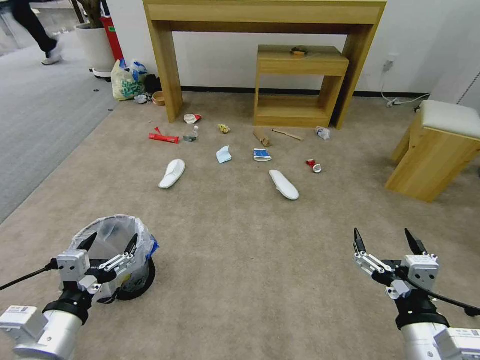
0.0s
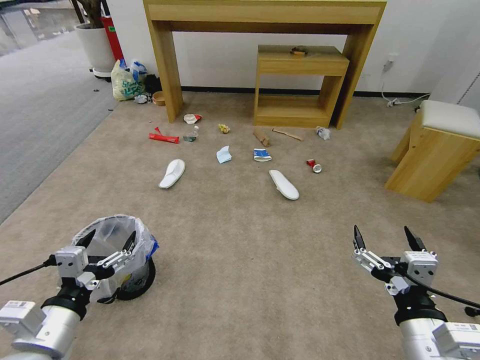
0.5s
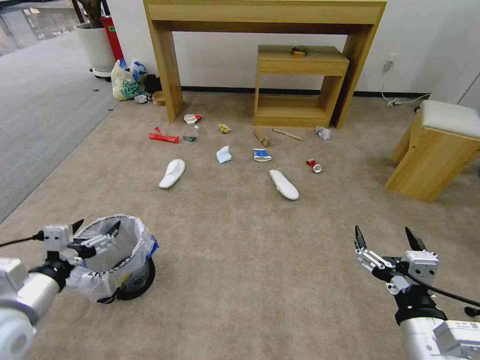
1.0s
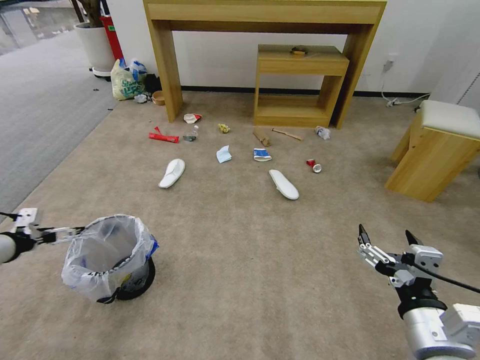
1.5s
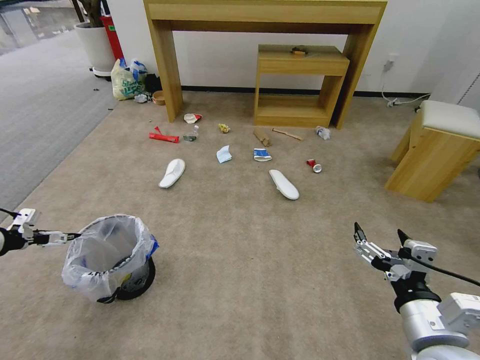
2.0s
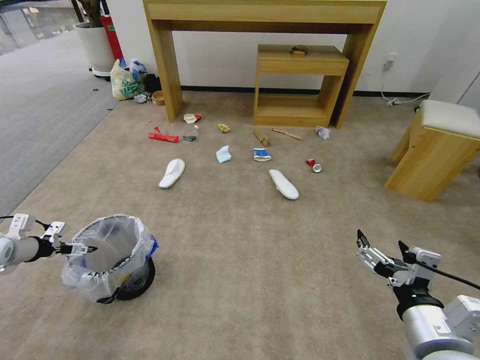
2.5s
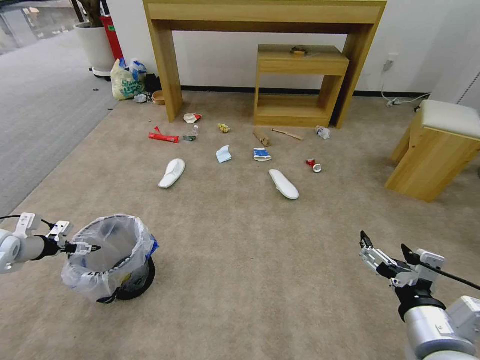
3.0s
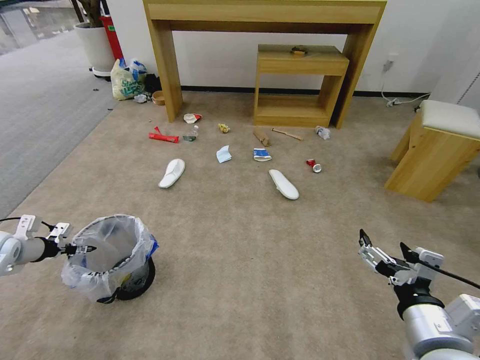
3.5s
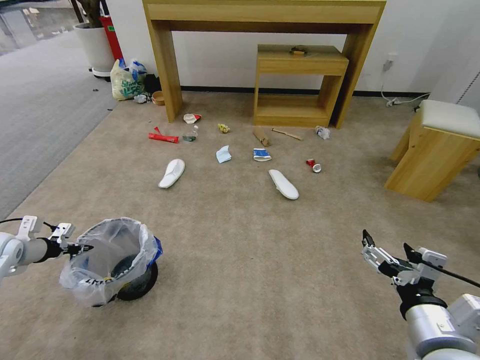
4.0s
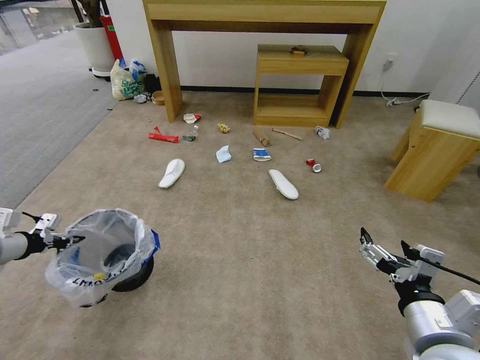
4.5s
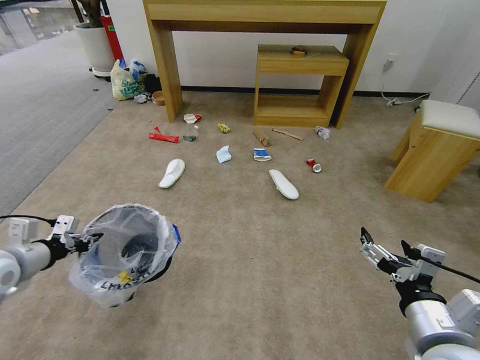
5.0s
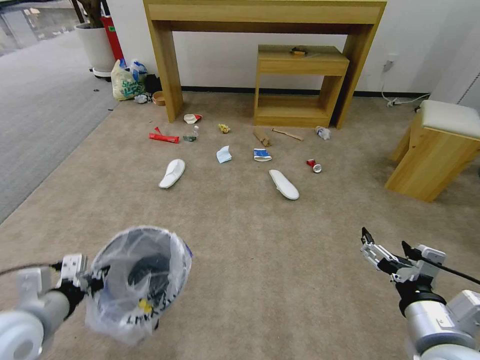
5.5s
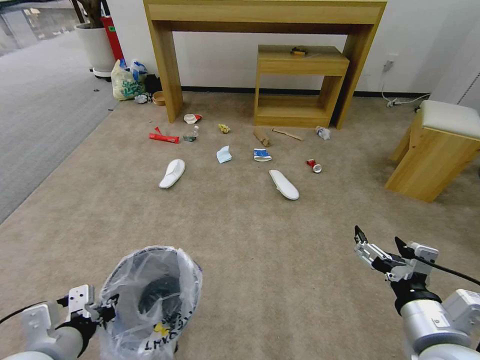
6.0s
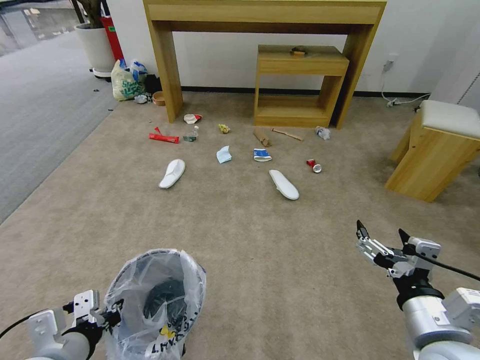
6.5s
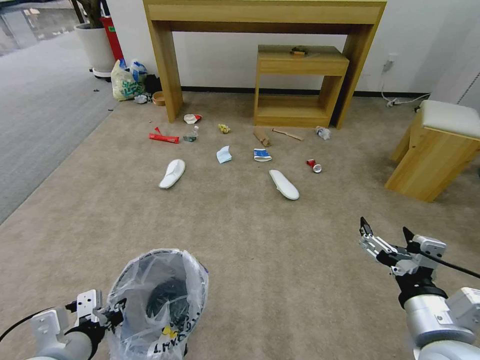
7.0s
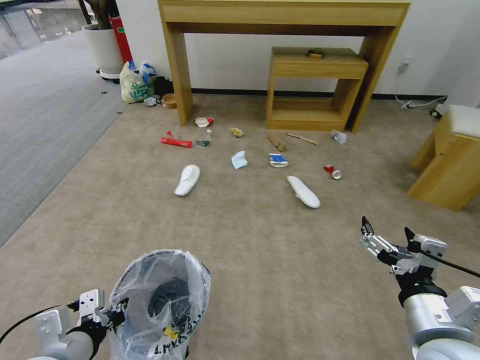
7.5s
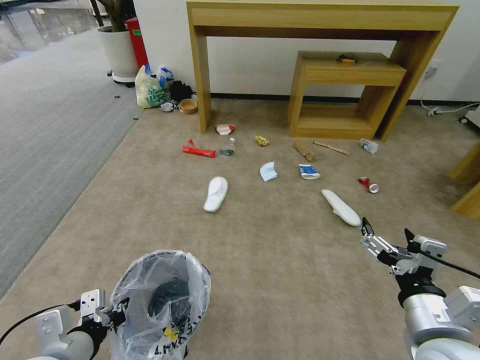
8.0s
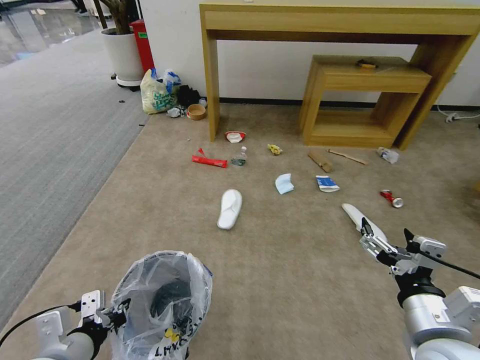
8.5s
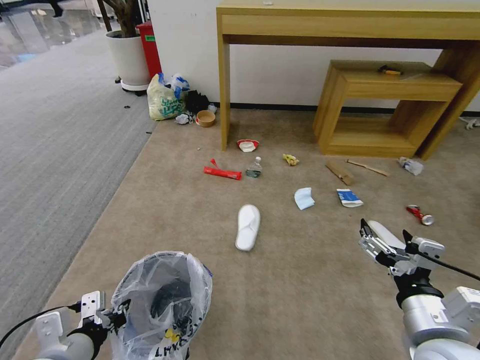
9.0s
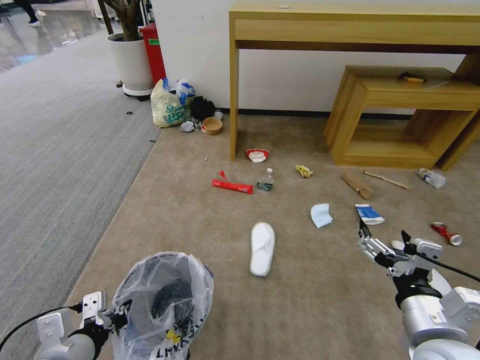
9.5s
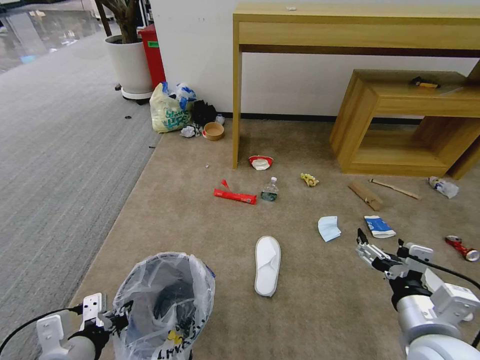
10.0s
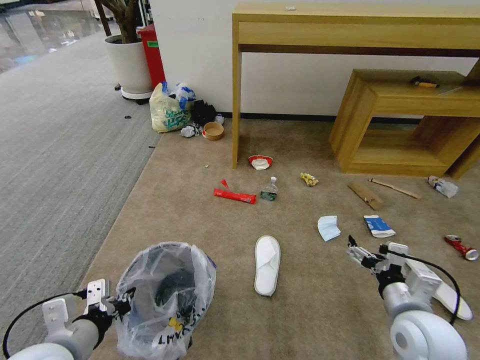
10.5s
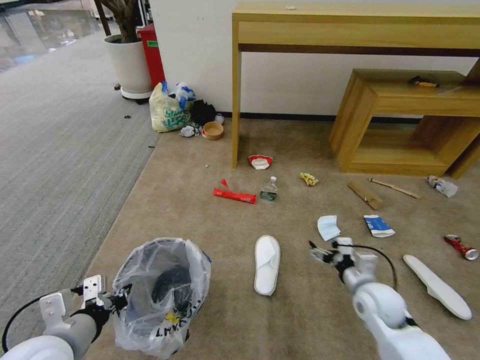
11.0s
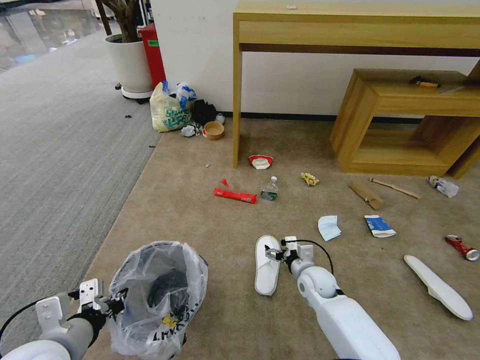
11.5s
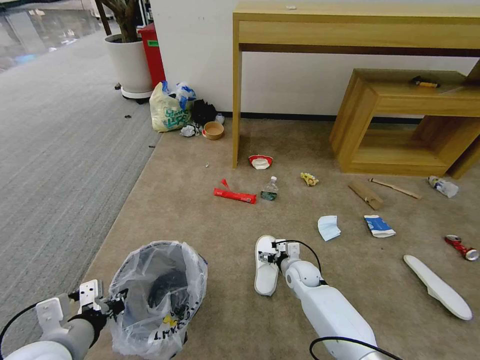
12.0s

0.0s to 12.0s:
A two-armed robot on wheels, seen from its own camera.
Task of the whole recording: Pick up the trash bin and place the garbage on the floor into it.
2.0s to 4.0s: The left gripper travels downward by about 10 cm, and closes its fingers.
4.0s to 6.0s: The left gripper shifts roughly 35 cm to the right and backward.
10.0s to 12.0s: The right gripper moves downward and forward, roughly 35 cm.

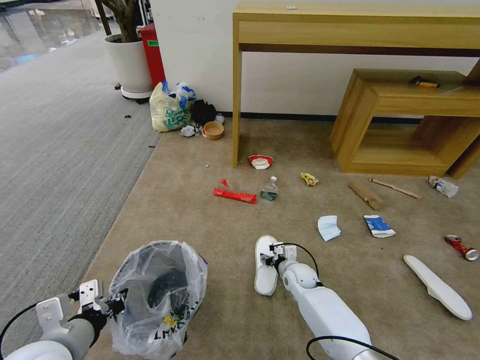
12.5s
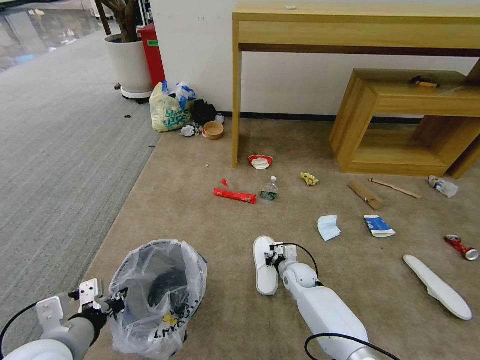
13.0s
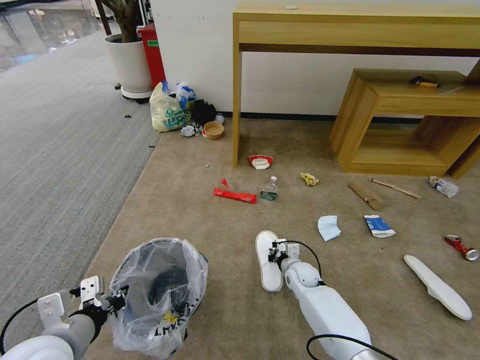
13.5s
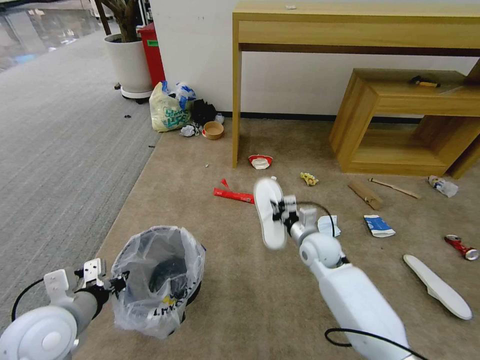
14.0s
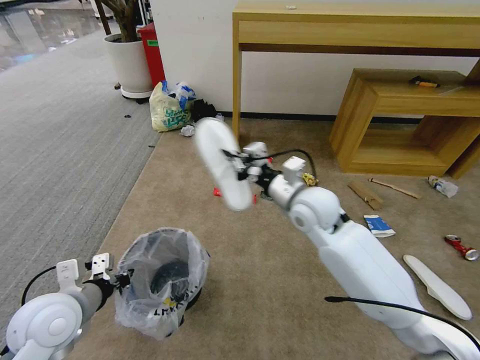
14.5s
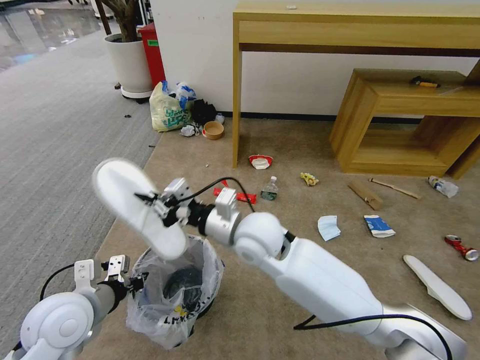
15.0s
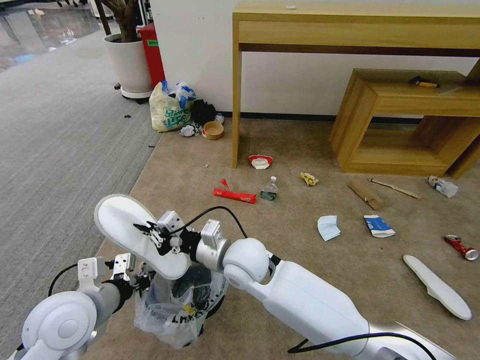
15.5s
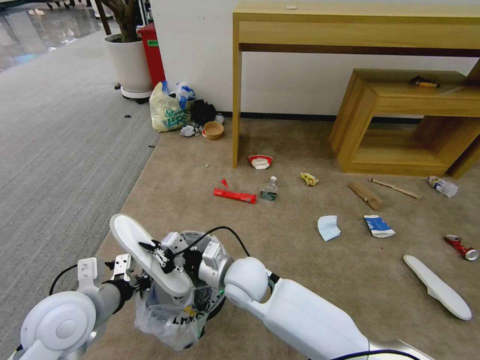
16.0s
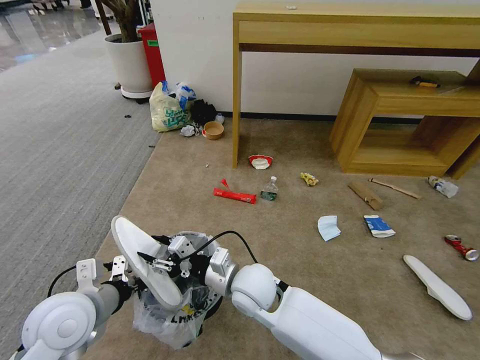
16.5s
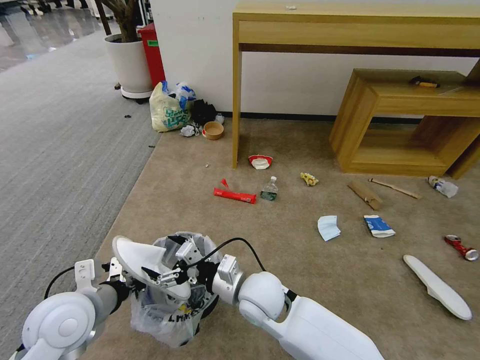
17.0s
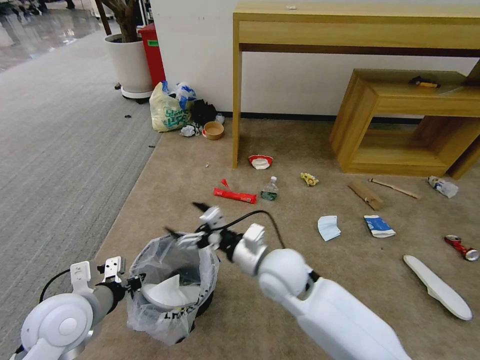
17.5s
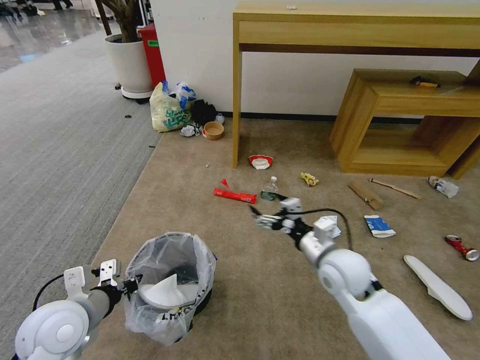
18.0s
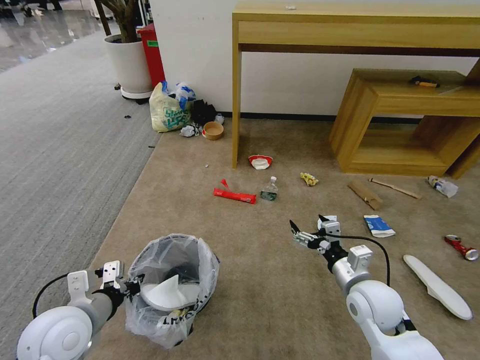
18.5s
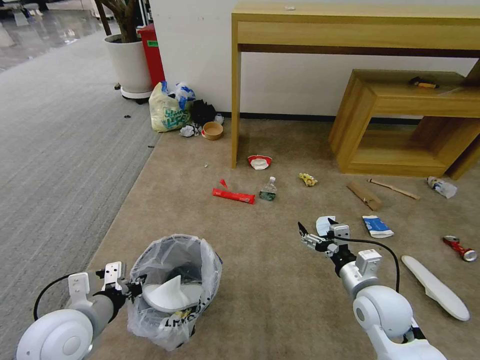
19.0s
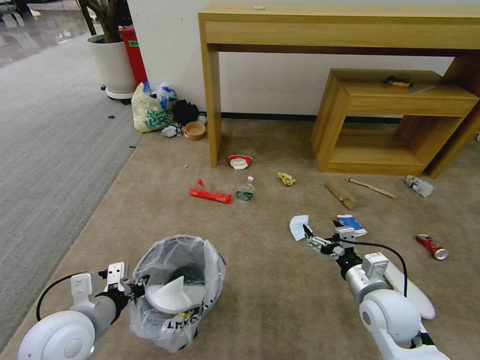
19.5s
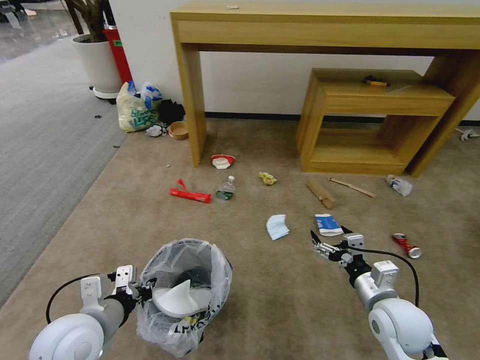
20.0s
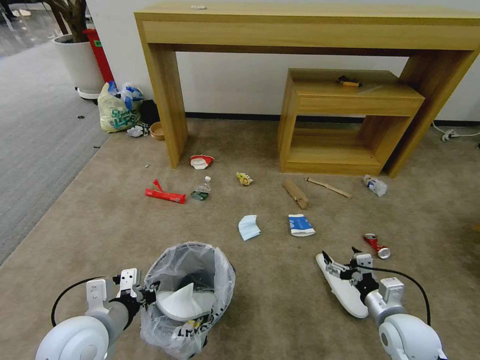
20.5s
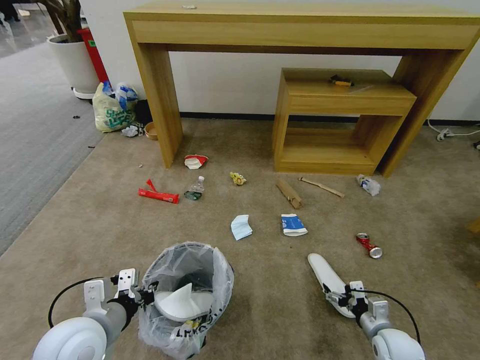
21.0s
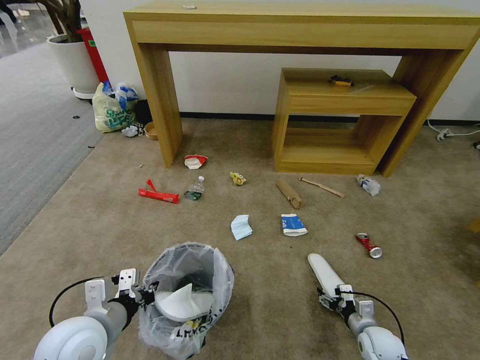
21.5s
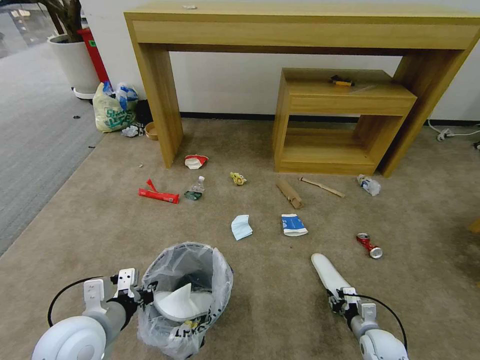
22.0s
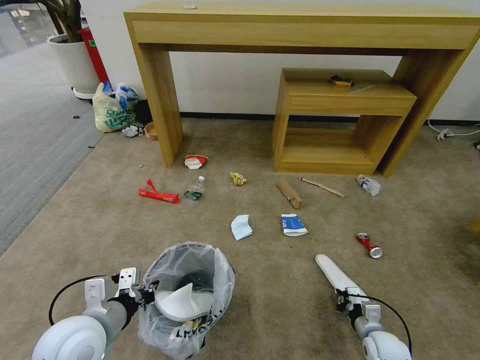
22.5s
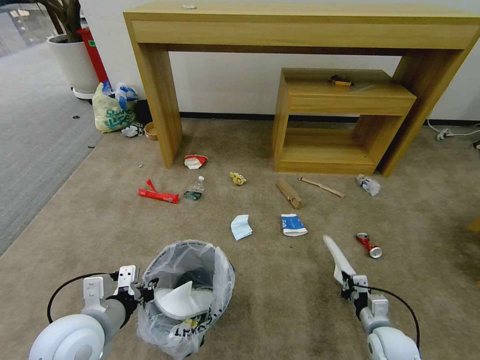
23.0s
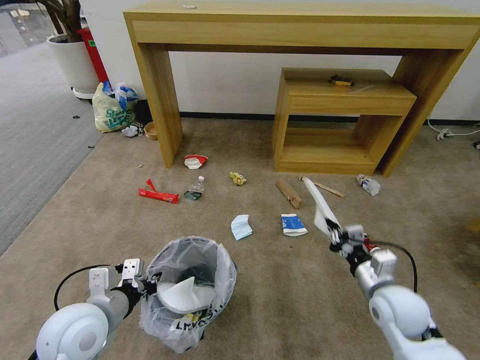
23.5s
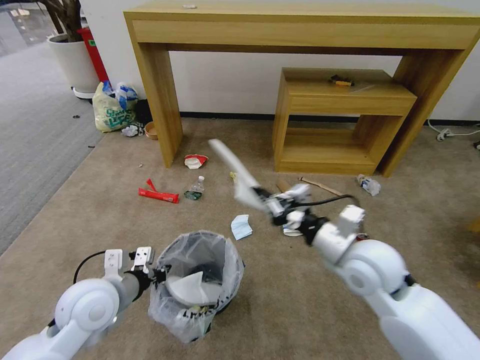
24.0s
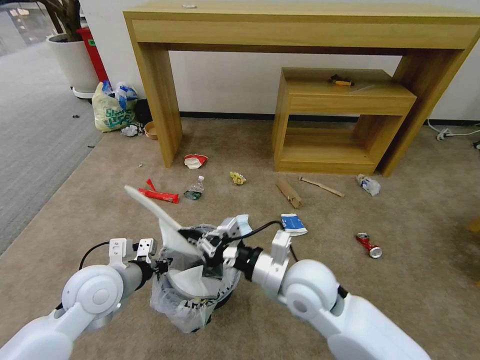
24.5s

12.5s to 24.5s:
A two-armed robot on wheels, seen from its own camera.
Task of the whole recording: Pick up the trash bin and place the garbage on the floor into it.
12.5s to 14.5s: The left gripper heads forward, covering roughly 5 cm, while the right gripper heads upward, covering about 30 cm, and closes up.
14.5s to 16.5s: The right gripper travels to the left, downward and backward by roughly 20 cm, and opens its fingers.
16.5s to 18.5s: The right gripper shifts roughly 25 cm to the right, and opens up.
18.5s to 20.5s: The right gripper shifts roughly 10 cm to the right, downward and backward.
20.5s to 22.5s: The right gripper moves downward, some 15 cm, and closes up.
22.5s to 24.5s: The right gripper shifts about 40 cm upward and to the left. The left gripper shifts approximately 10 cm forward.

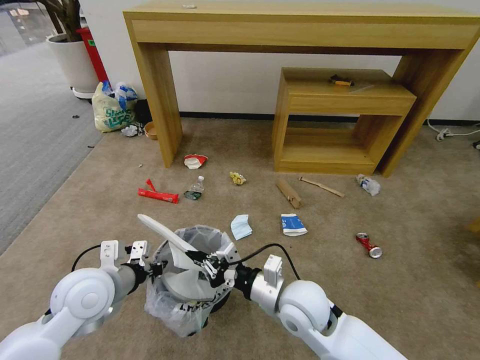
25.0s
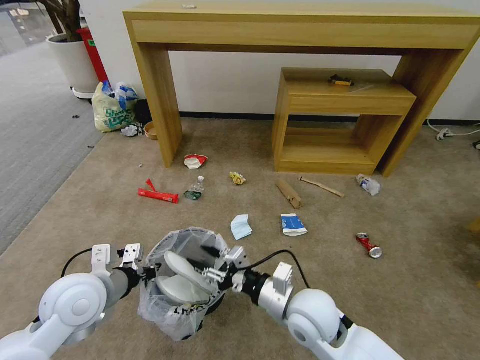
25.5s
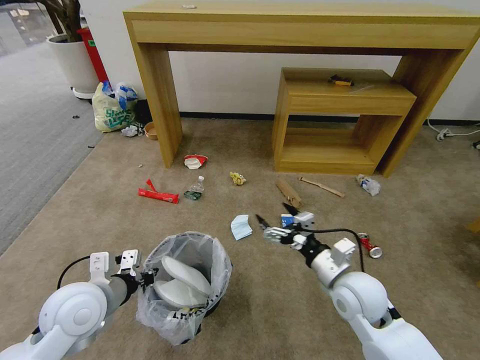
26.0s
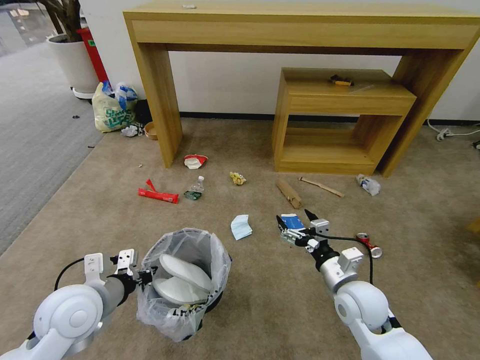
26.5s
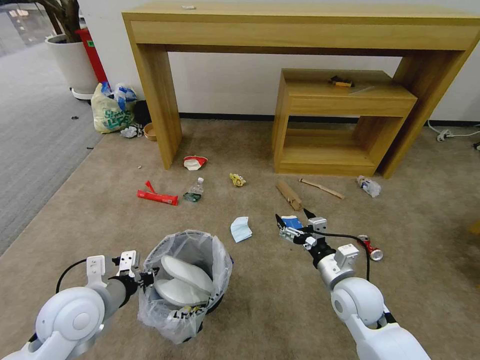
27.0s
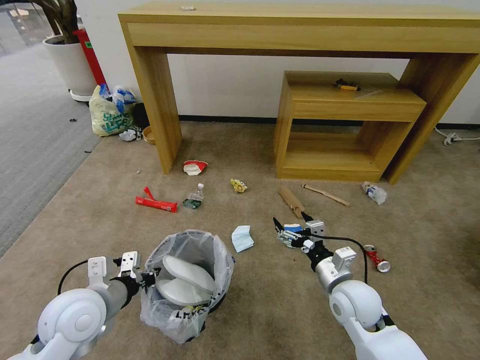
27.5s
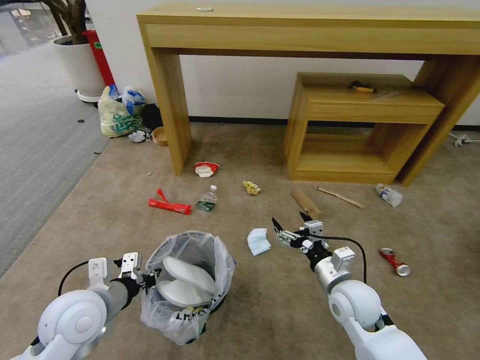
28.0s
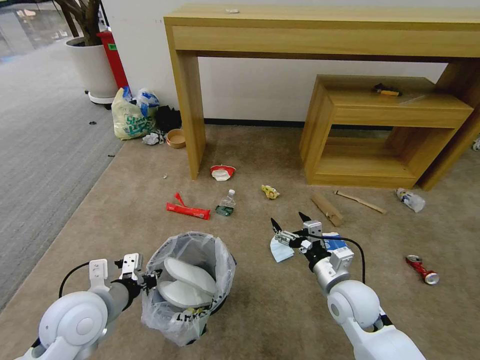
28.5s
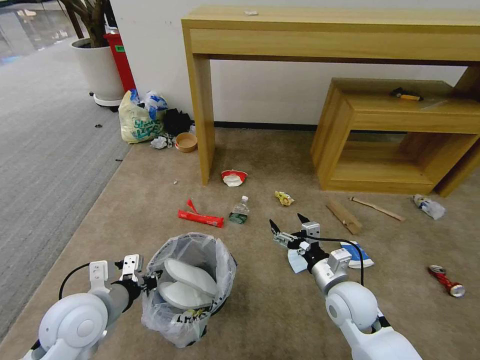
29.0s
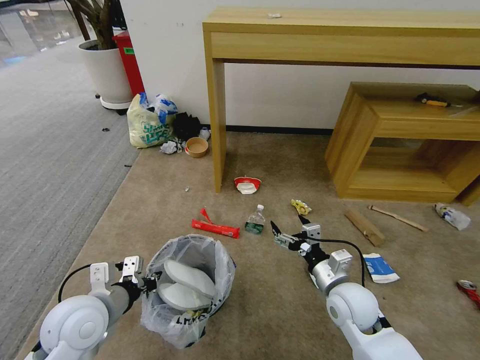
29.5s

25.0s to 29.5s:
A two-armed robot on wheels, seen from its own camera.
Task of the whole recording: Pick up the trash bin and place the garbage on the floor into it.
25.0s to 27.0s: The right gripper is displaced to the right by about 15 cm, and opens its fingers.
